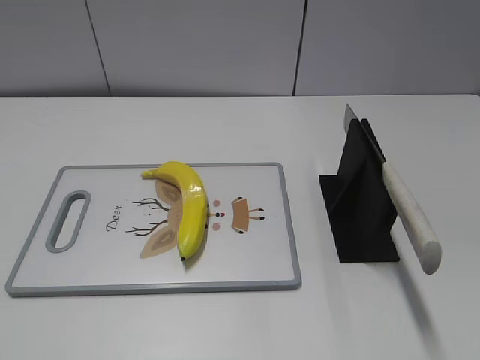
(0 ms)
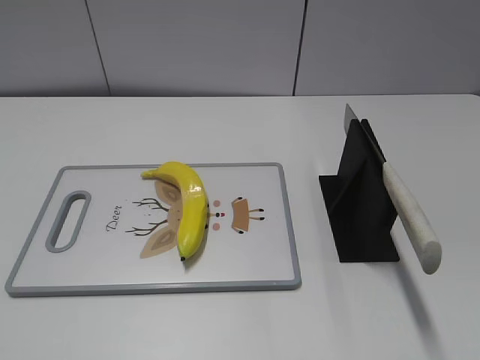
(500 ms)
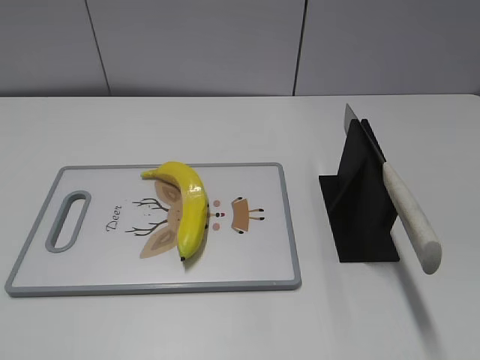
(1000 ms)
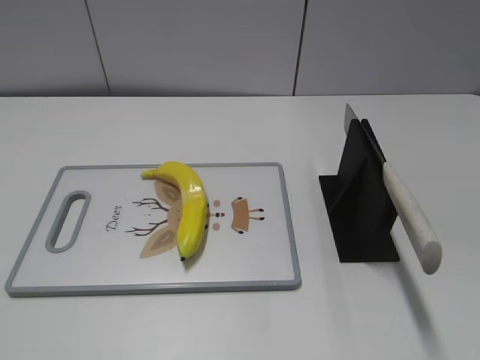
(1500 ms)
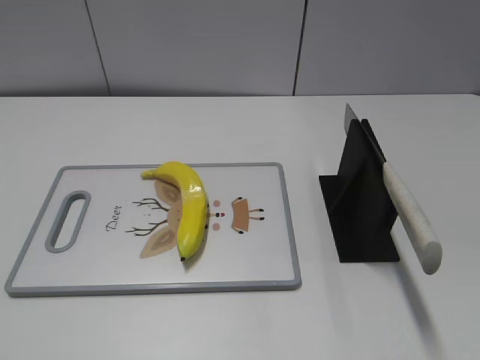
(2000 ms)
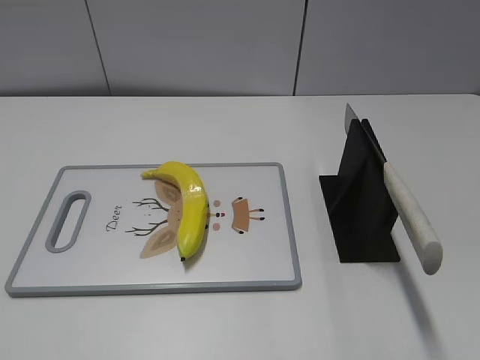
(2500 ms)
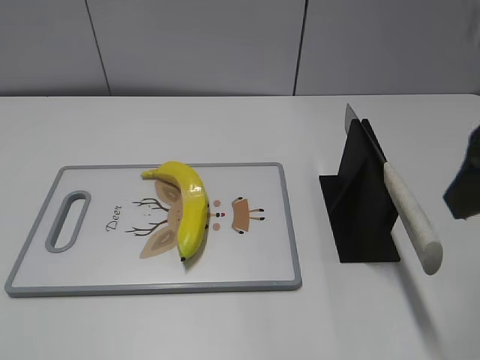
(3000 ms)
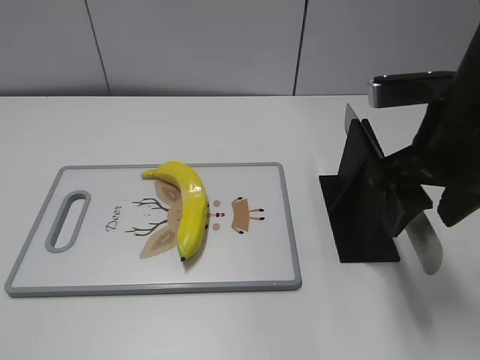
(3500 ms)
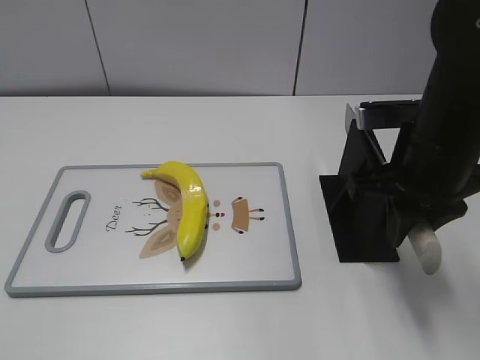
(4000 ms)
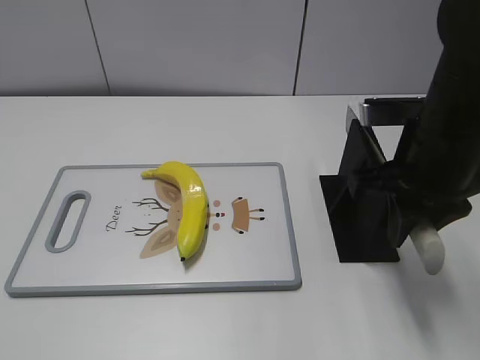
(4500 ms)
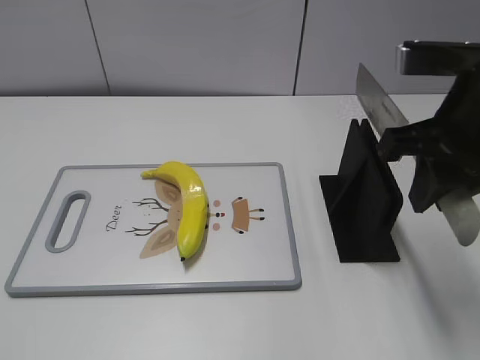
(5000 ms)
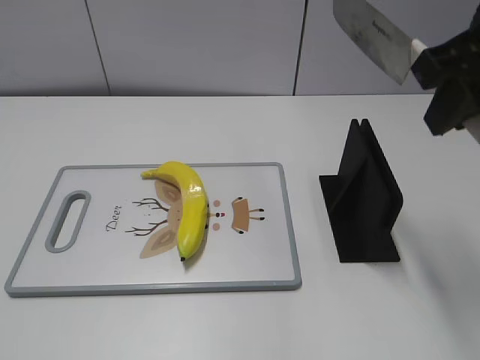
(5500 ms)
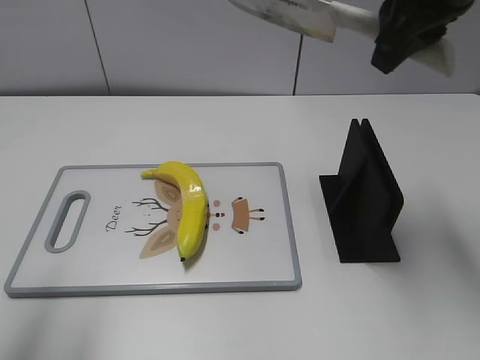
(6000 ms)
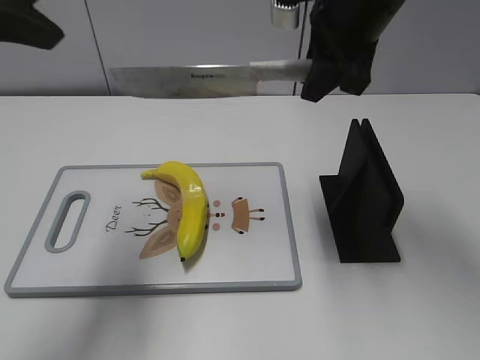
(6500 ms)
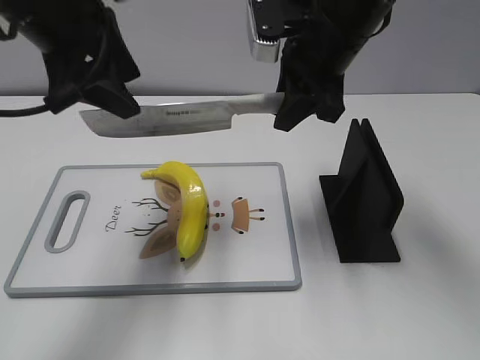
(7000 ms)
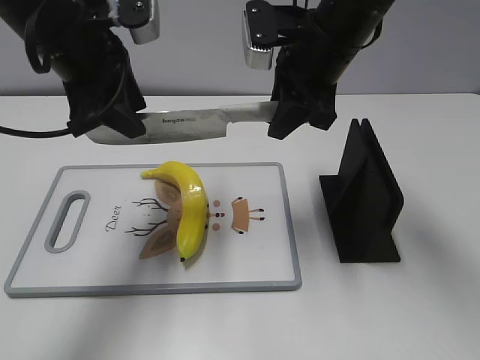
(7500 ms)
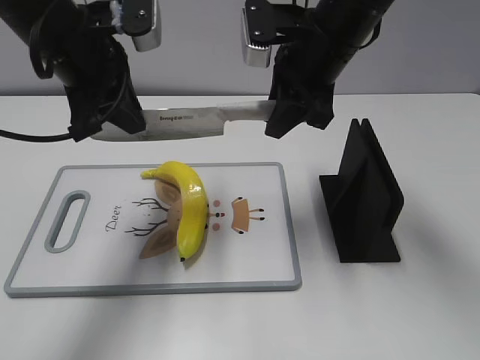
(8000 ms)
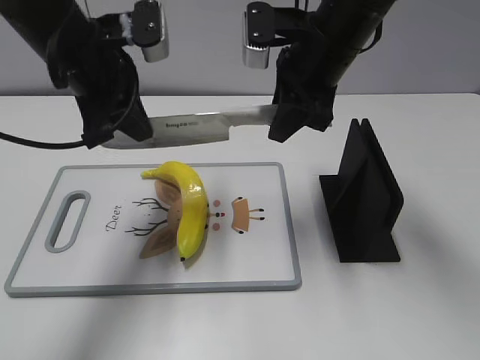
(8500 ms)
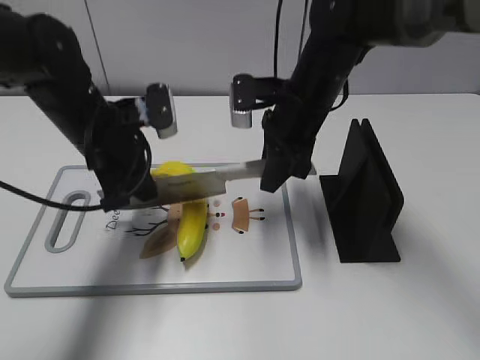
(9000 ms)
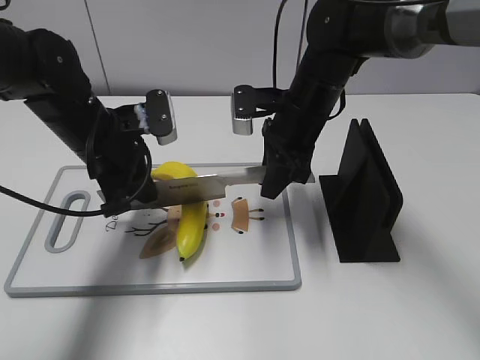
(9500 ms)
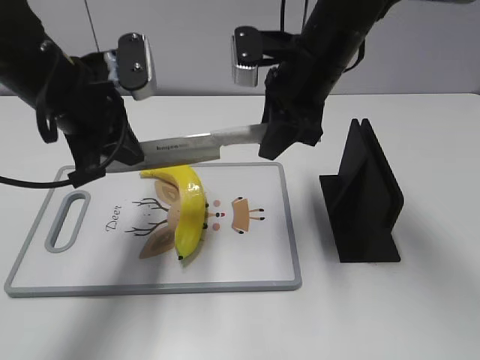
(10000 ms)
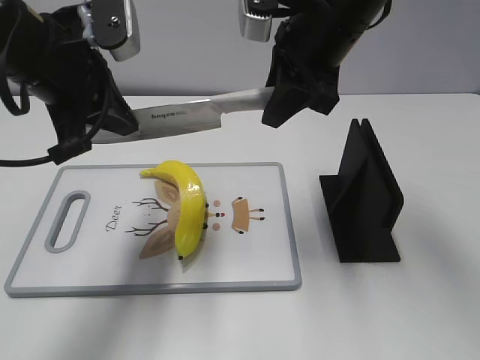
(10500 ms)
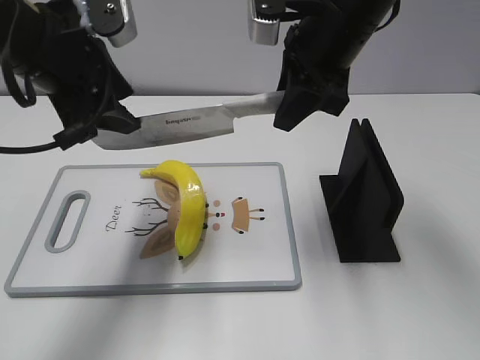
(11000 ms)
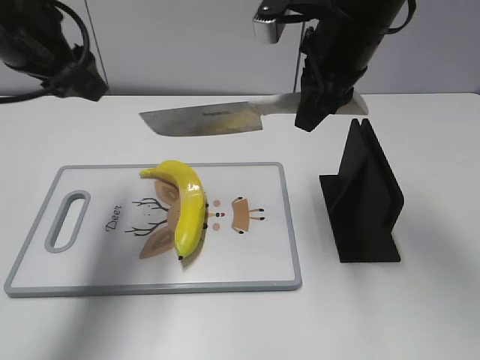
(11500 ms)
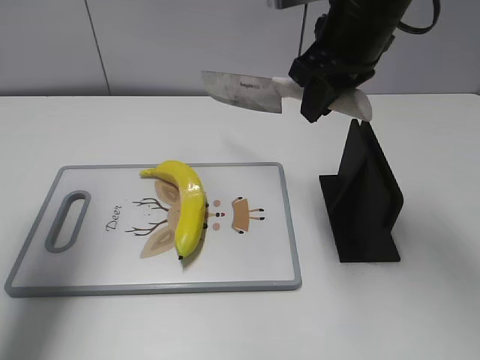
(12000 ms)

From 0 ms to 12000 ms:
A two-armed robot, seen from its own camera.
Task of the whole recording: cut plastic banana.
Step, from 0 ms to 5000 ms: Grab the knife handle with your right hand.
Step, from 5500 ms to 10000 ms: Lift the knife with your right hand.
Step, from 10500 ms to 11500 ms: Cut the banana with your right hand.
From 2000 ms to 4000 ms: The right gripper travels forward and to the left by approximately 25 cm, and closes up.
From 4000 ms to 6000 ms: The left gripper travels forward and upward by approximately 15 cm, while the right gripper moves upward, approximately 15 cm.
From 6000 ms to 8000 ms: The left gripper is displaced forward and to the right by roughly 25 cm, and closes. Meanwhile the right gripper heads downward, to the left and forward, covering roughly 15 cm.
From 8000 ms to 10000 ms: The right gripper reaches about 10 cm downward, then returns.
From 10000 ms to 12000 ms: The left gripper heads to the left and upward, covering approximately 15 cm, and opens its fingers, while the right gripper goes roughly 5 cm upward.

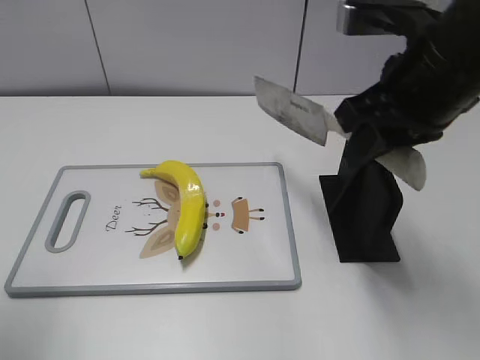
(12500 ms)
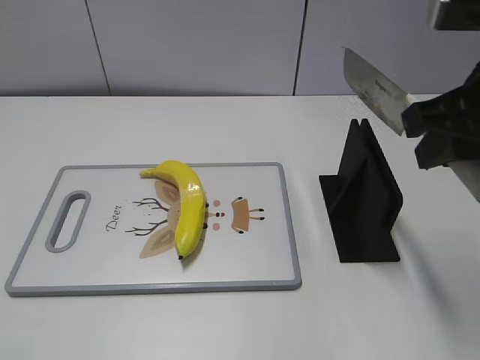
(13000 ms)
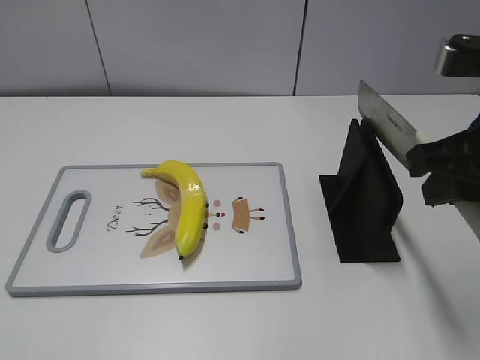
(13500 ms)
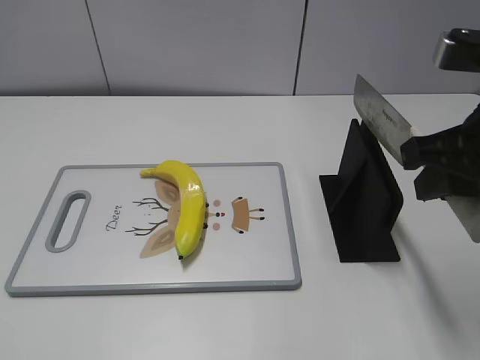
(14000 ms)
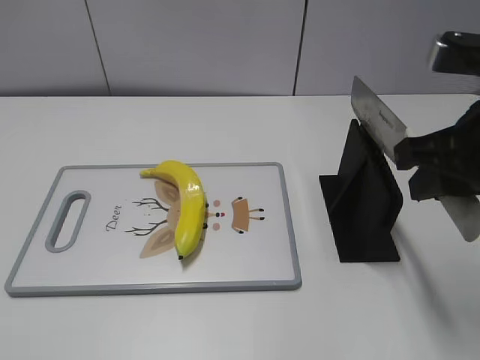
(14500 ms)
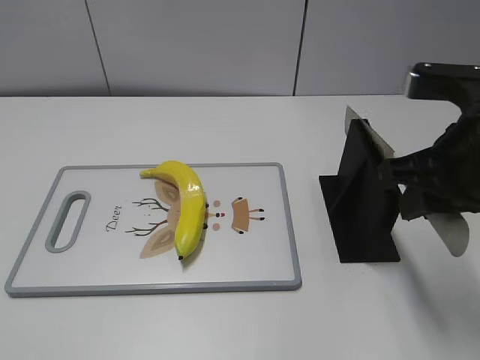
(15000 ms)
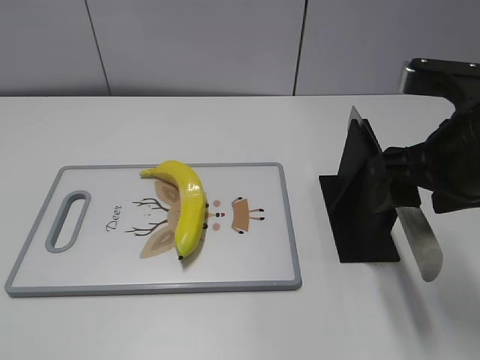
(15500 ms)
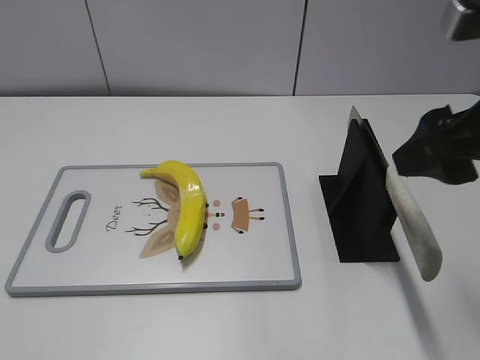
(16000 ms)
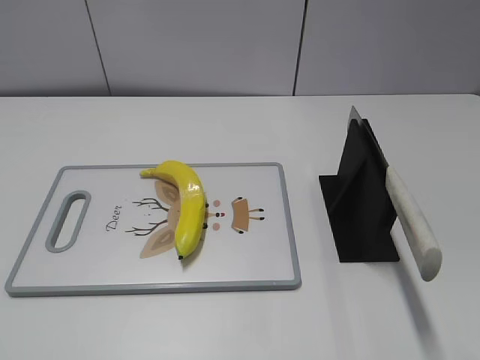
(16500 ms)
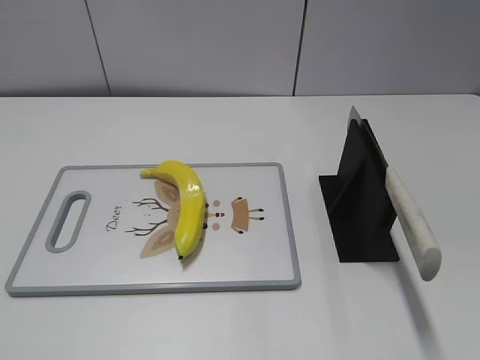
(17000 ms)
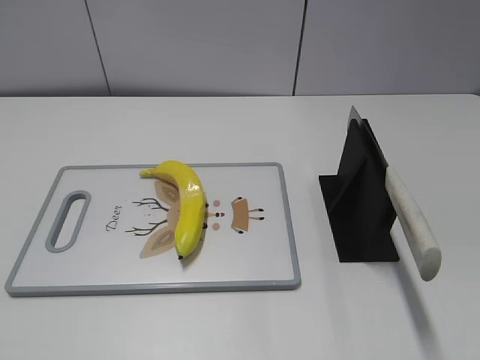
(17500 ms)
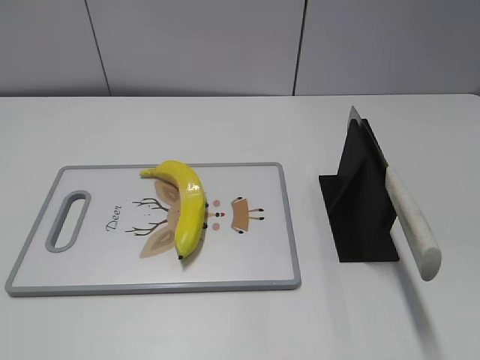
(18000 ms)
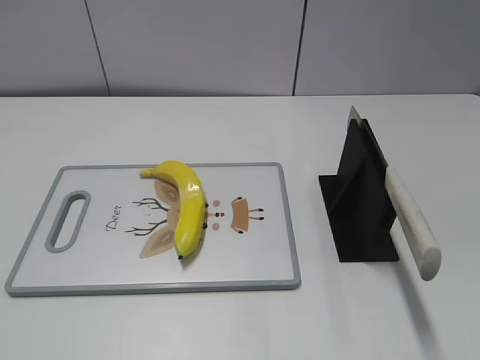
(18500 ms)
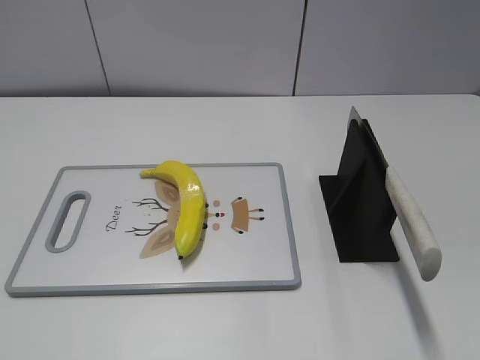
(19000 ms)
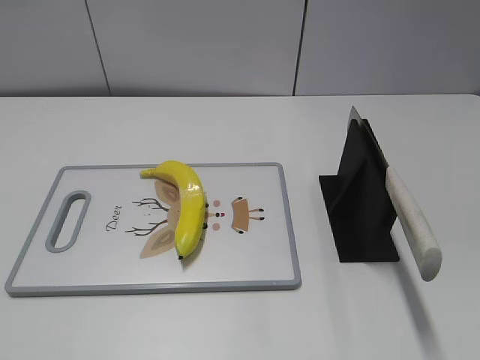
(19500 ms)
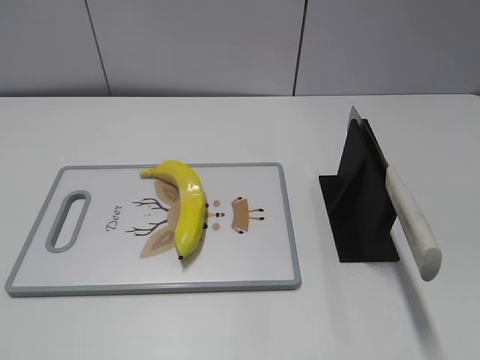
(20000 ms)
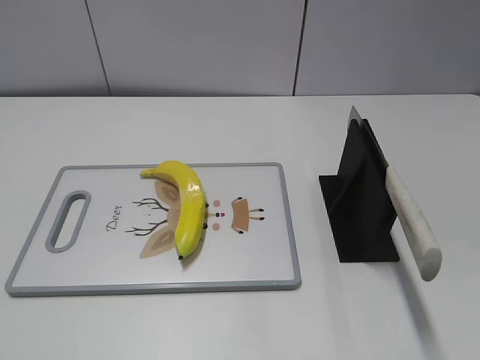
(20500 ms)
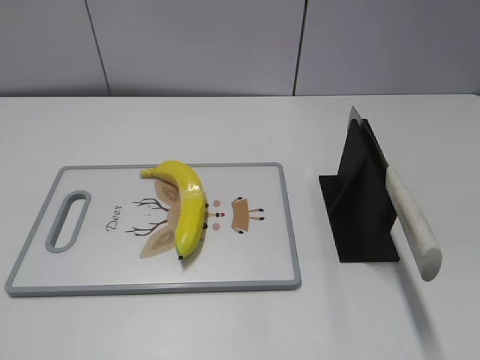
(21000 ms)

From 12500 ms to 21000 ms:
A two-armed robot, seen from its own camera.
Task of the whole recording: cut plastic banana.
Step, from 13500 ms to 19000 ms: Place the knife on the storage rack with your right hand.
From 12500 ms to 14500 ms: The right gripper is displaced backward by some 5 cm, while the left gripper moves backward, some 15 cm.
From 14500 ms to 16500 ms: The right gripper travels backward by some 10 cm, and opens up.
From 19000 ms to 21000 ms: Both grippers stay about where they are.
